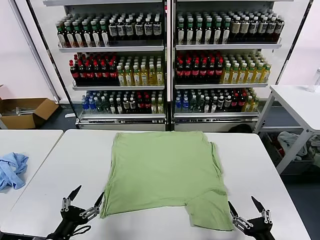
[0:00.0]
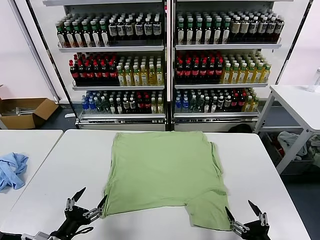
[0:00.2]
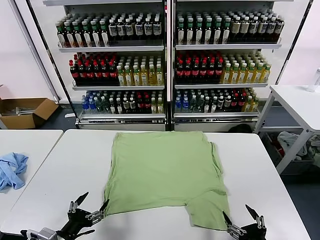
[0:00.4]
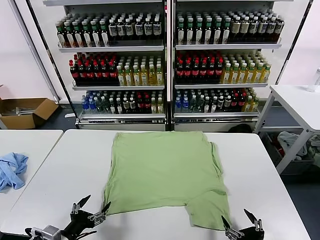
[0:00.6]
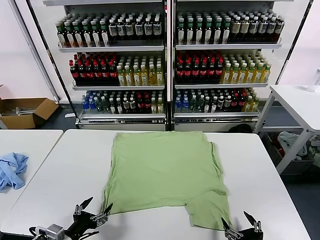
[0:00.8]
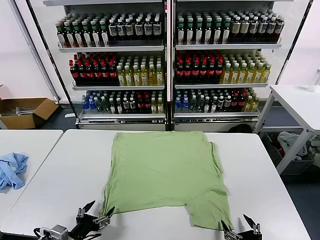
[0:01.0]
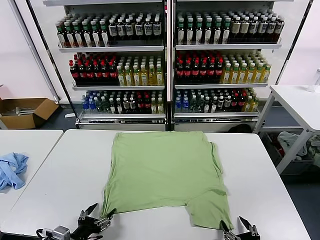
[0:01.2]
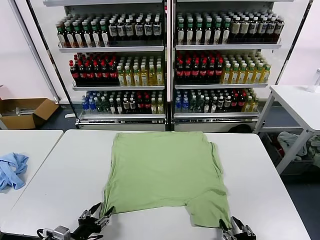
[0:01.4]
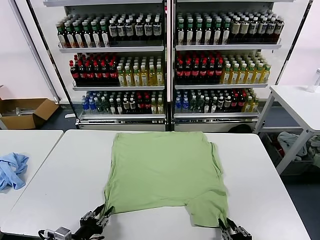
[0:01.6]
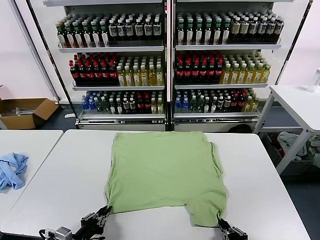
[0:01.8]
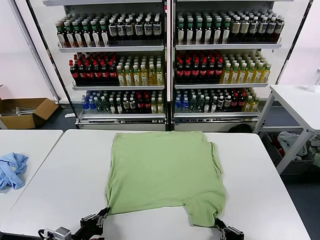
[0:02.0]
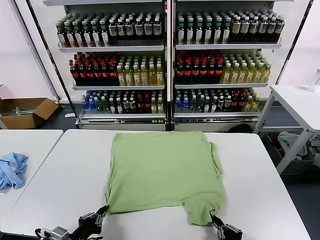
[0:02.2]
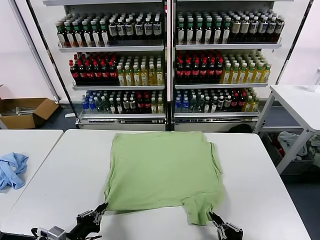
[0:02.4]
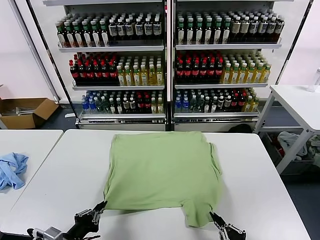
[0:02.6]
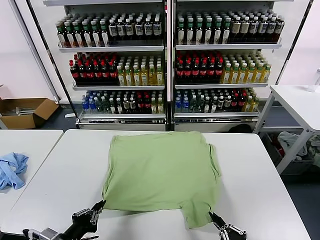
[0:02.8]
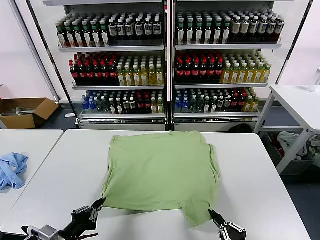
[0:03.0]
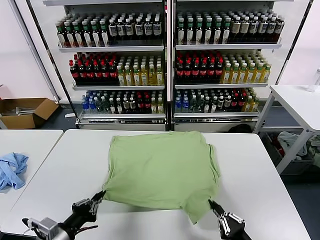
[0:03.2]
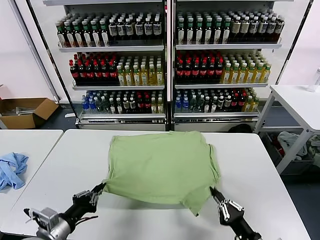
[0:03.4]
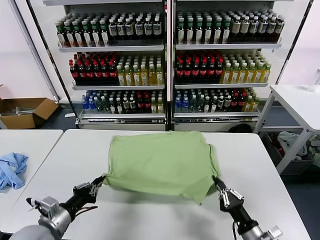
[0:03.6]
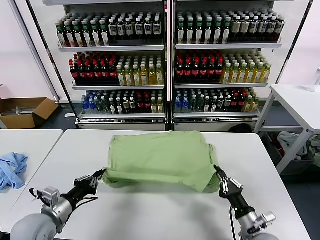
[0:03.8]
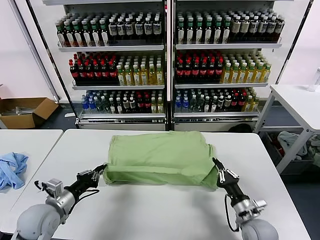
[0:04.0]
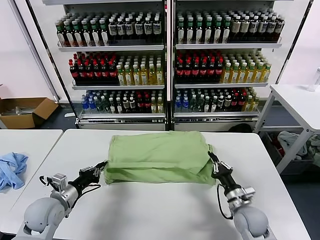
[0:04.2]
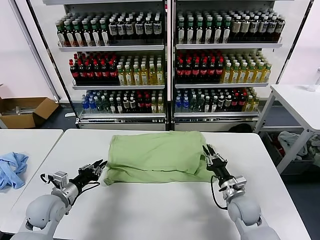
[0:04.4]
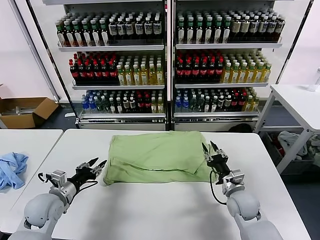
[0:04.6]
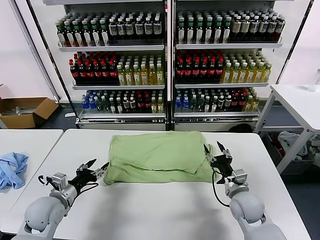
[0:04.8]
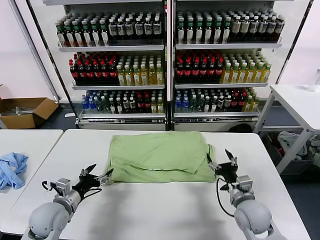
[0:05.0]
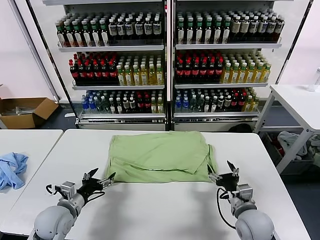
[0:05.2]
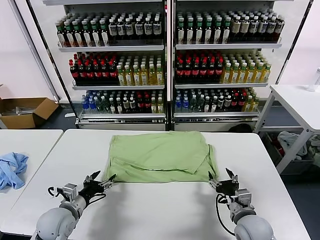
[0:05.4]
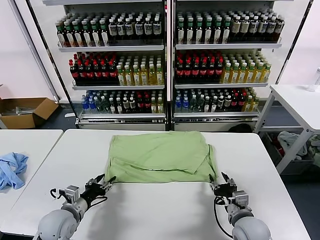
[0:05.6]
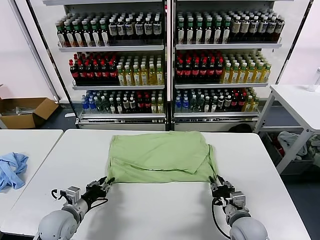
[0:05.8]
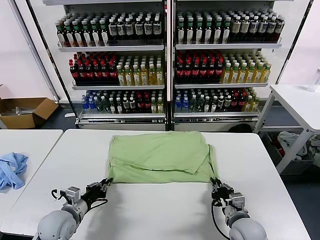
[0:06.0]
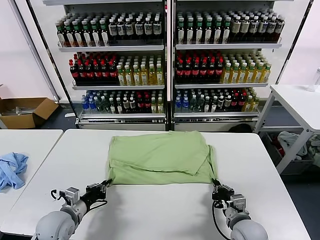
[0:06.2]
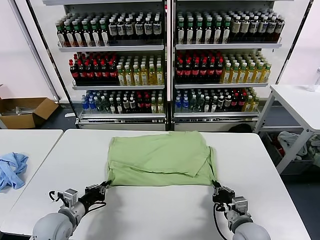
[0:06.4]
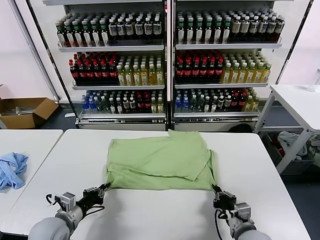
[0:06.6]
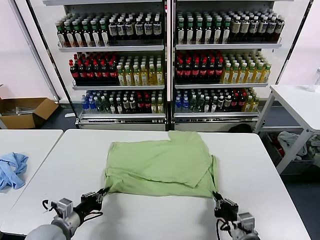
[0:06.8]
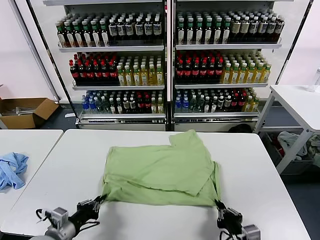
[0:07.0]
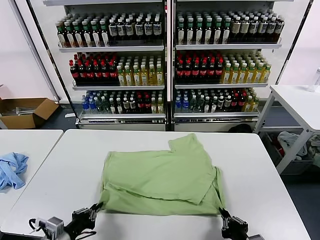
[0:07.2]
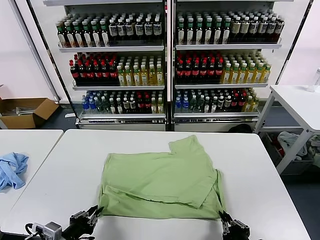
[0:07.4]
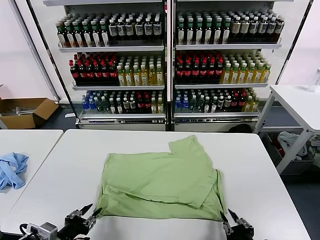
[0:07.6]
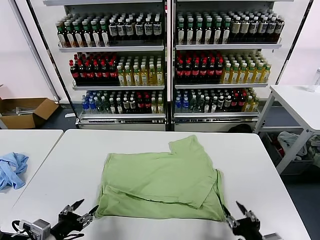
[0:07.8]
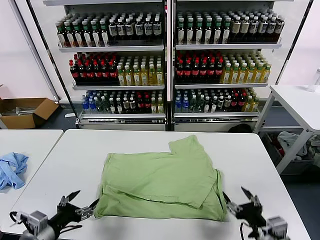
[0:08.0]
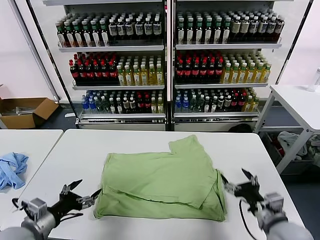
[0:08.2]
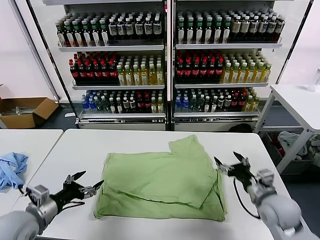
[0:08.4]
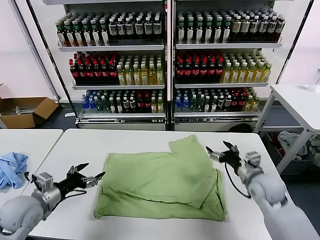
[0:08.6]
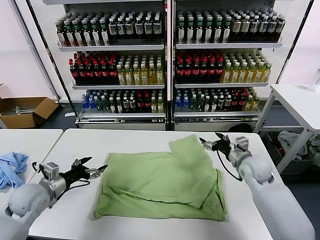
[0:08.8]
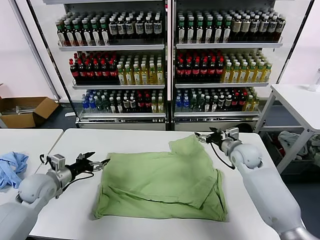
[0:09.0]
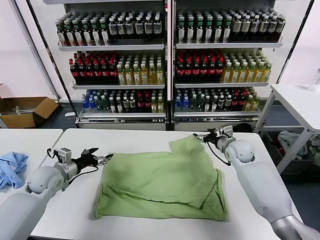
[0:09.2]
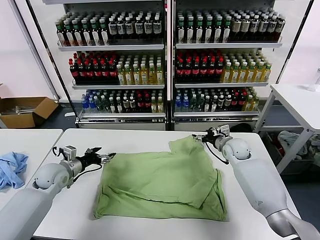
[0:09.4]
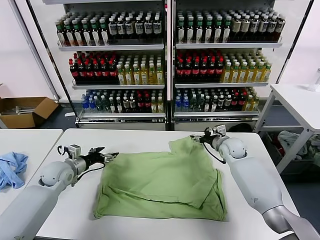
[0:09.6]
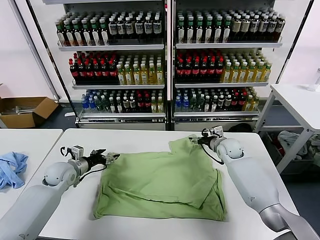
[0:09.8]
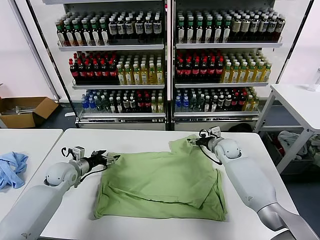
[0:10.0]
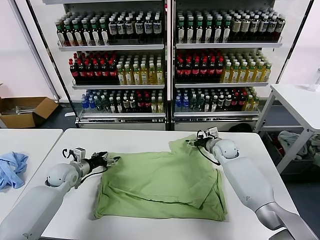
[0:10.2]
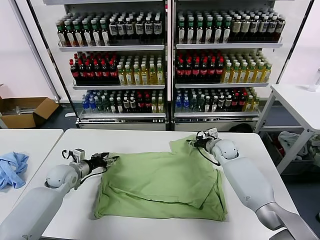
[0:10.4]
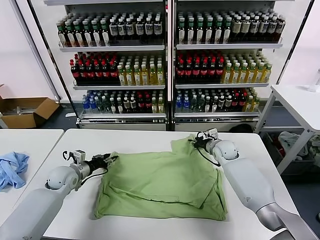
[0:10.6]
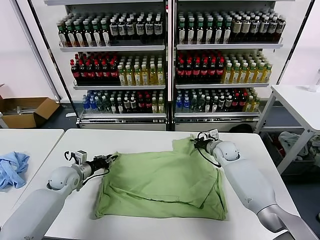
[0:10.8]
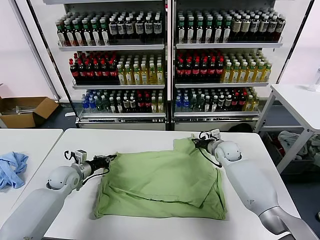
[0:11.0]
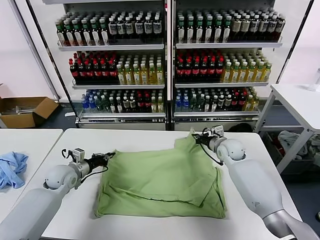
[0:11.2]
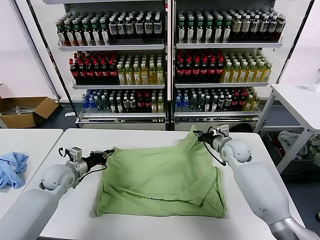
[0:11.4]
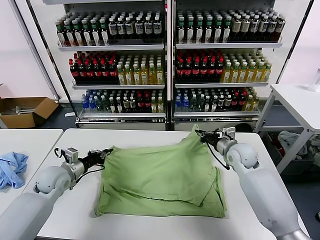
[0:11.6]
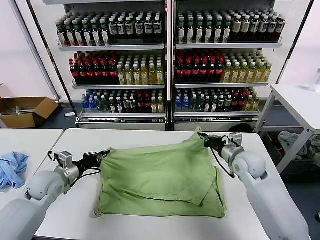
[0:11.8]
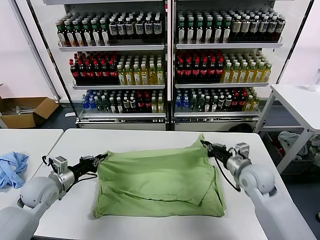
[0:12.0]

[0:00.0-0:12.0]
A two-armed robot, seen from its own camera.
Task of the whole recording: fold and organize the clothes.
Step, 0:00.0 to 0:01.8: use both grippers simultaneously to clamp the lower edge of the clothing fabric.
Step, 0:02.0 to 0:04.2: use both grippers to drag the lower edge of the fabric forward and fold it over the upper edge.
Step, 0:04.6 to 0:07.4: Drag the clothes downward with both gripper.
Step, 0:07.8 to 0:10.8: use both grippers simultaneously to clamp the upper edge of the clothing fabric.
0:01.6 to 0:03.0: The left gripper shifts approximately 5 cm upward.
0:03.0 to 0:04.4: The grippers both shift forward by some 20 cm. The left gripper opens. Meanwhile the right gripper opens up.
0:04.4 to 0:06.0: The right gripper heads backward, covering some 10 cm, and closes, while the left gripper changes place by approximately 5 cm, and closes its fingers.
0:06.0 to 0:07.6: Both grippers move backward and upward, roughly 15 cm. The left gripper opens its fingers; the right gripper opens its fingers.
0:07.6 to 0:09.0: The left gripper goes approximately 25 cm forward, and opens, while the right gripper heads forward, covering some 40 cm, and opens.
0:09.0 to 0:10.4: The right gripper ends up approximately 5 cm from where it was, and closes up. Meanwhile the left gripper heads downward and forward, covering approximately 10 cm, and closes its fingers.
0:10.4 to 0:12.0: The right gripper goes approximately 20 cm backward, and closes its fingers. Meanwhile the left gripper travels backward and upward by some 10 cm, and closes.

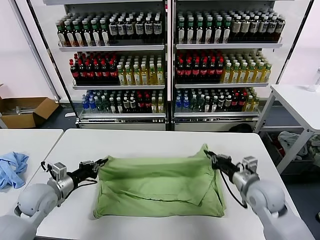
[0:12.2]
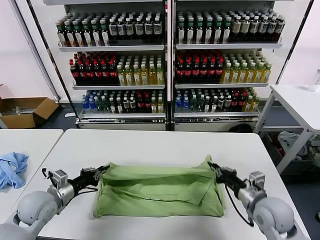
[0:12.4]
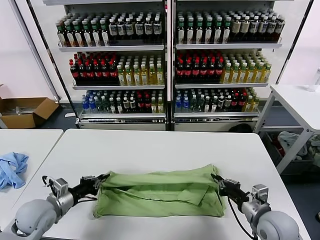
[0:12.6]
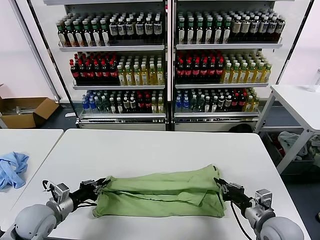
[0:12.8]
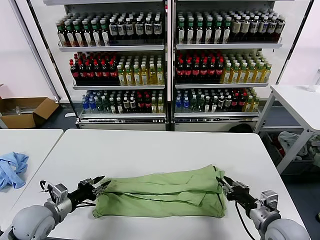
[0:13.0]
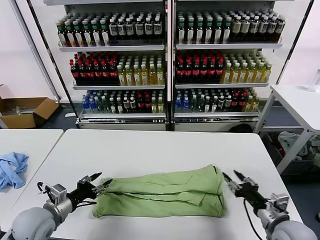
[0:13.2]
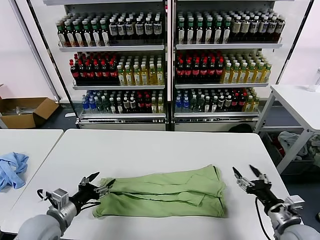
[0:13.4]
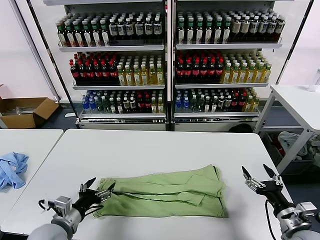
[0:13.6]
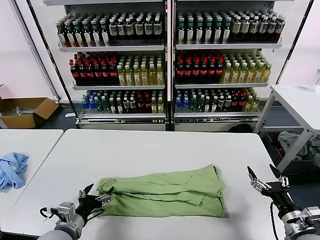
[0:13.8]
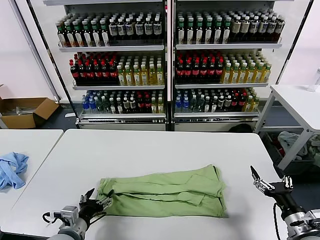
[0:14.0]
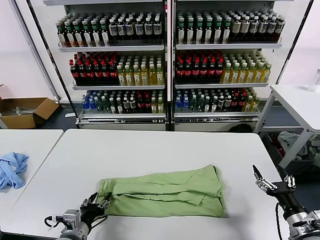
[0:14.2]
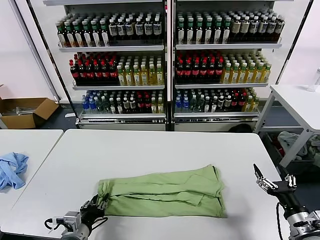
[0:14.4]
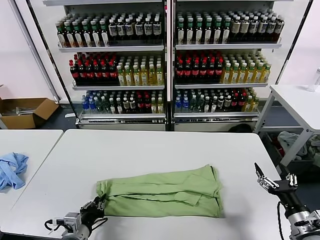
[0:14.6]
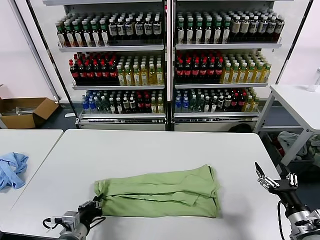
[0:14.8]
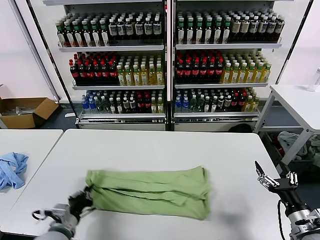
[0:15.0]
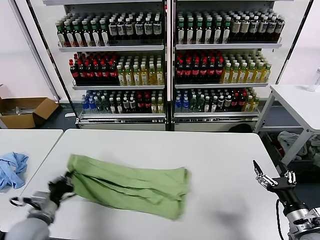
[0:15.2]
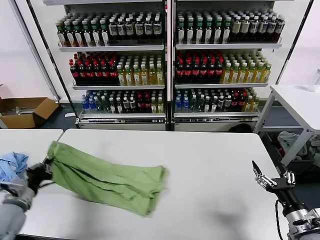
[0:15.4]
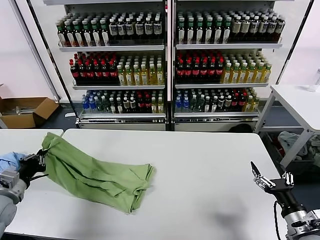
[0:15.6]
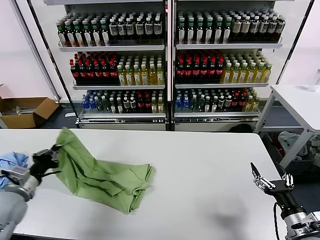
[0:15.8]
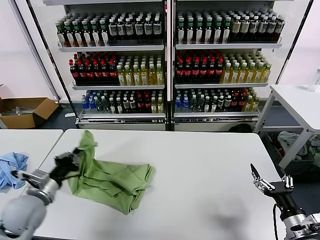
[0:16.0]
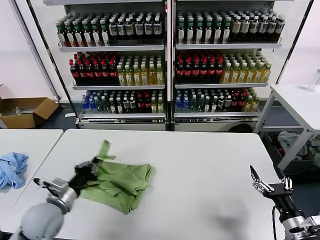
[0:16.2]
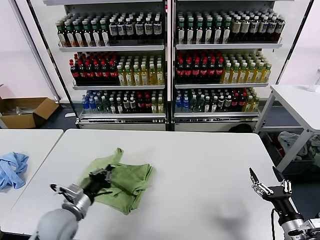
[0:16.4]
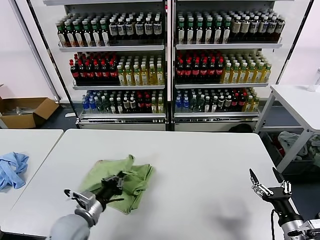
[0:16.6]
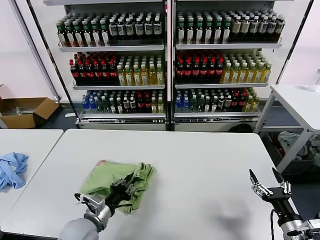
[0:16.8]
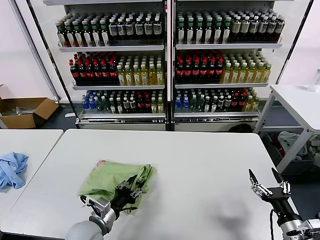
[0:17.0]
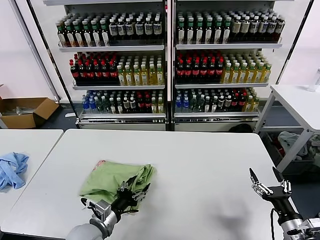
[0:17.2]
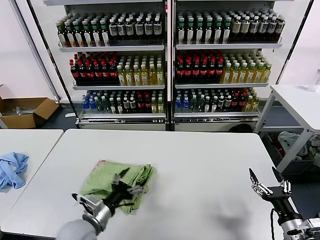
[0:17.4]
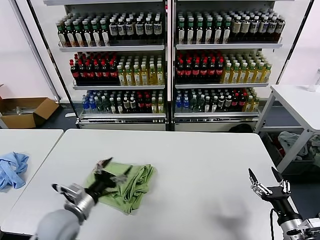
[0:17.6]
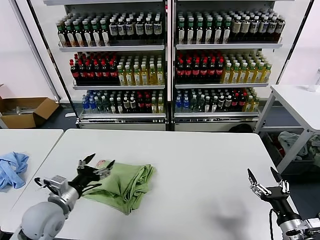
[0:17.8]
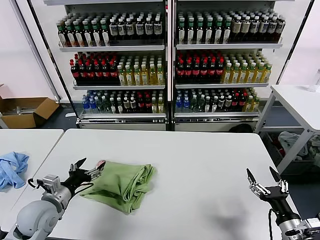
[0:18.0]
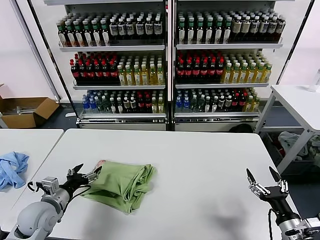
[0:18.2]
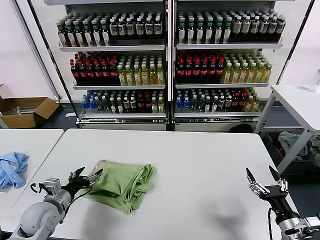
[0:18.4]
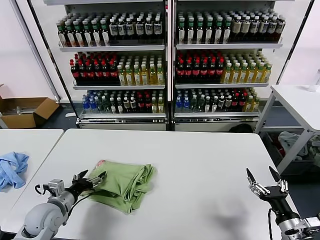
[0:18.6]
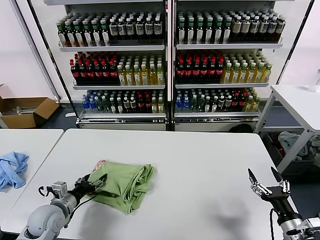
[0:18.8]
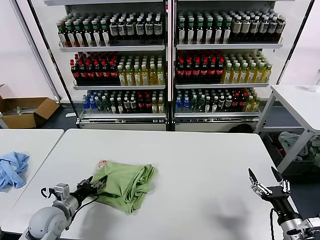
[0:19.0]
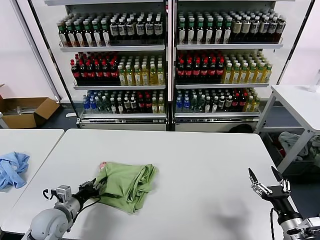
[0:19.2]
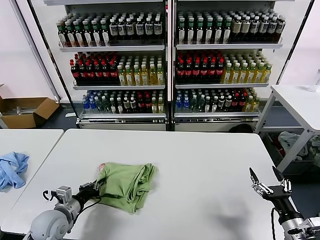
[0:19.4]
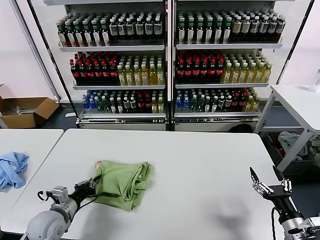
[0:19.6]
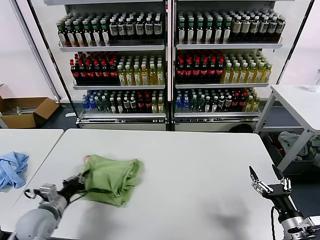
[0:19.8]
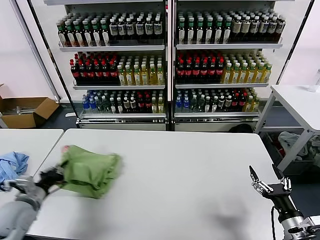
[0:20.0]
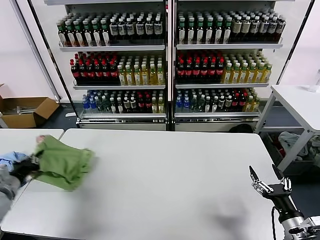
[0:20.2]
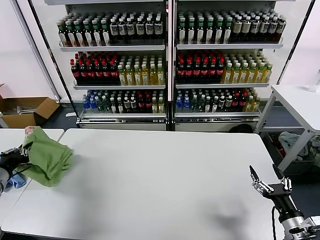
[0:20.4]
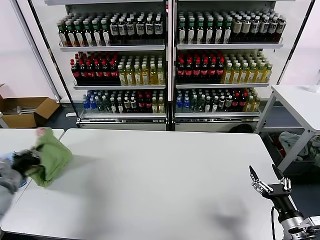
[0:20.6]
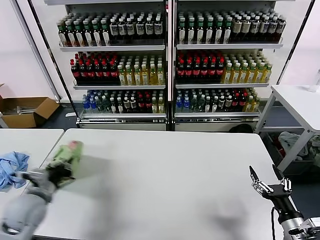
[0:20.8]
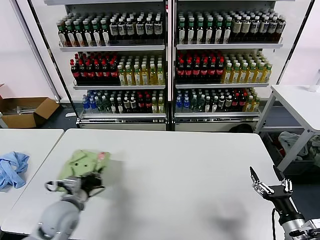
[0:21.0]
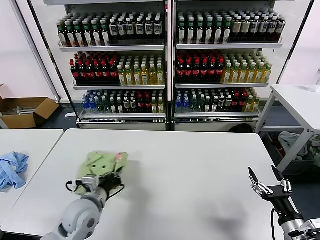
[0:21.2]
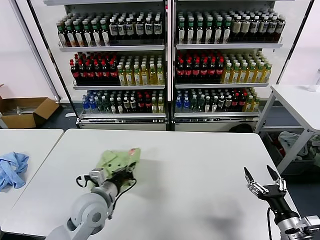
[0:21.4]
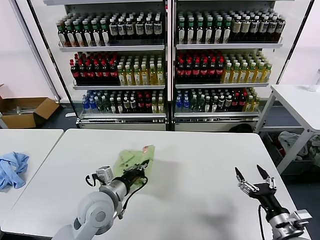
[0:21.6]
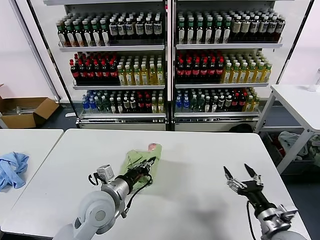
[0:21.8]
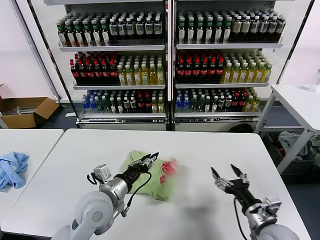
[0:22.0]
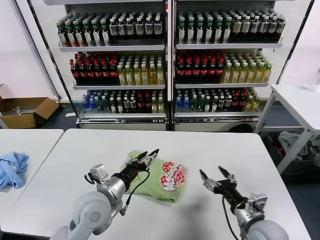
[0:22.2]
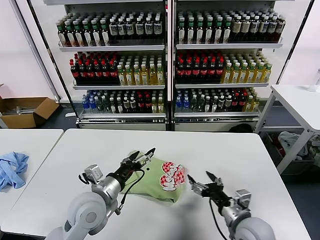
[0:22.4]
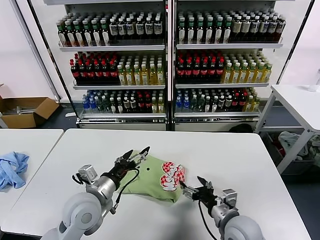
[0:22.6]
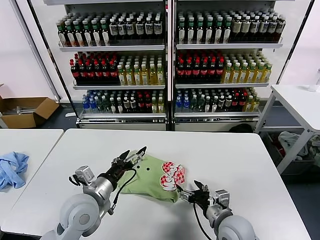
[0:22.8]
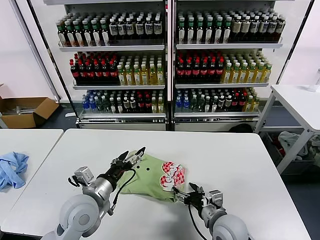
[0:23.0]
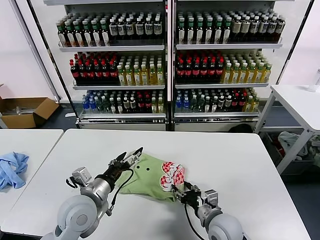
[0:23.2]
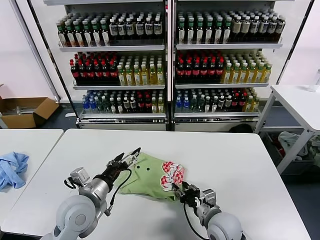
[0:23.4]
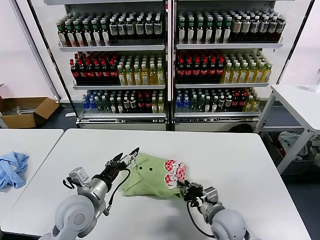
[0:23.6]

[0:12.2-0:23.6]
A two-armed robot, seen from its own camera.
Task of the whole recording: fold and organize the clothes.
Step, 0:13.0 to 0:14.6: use the left gripper to clamp the left edge of the fabric.
Step, 0:14.8 to 0:16.8: use the left gripper to drag the left edge of the fabric to the left and folds it over the right edge.
Step, 0:17.2 to 0:22.0: Flip the folded clothes over with left gripper.
0:12.2 to 0:13.6: The grippers both shift backward and to the right by roughly 15 cm. The left gripper opens its fingers, while the right gripper opens its fingers.
0:13.6 to 0:15.0: The left gripper closes up.
0:15.0 to 0:16.4: The left gripper travels to the left and back again, roughly 15 cm each way.
0:16.4 to 0:17.8: The left gripper moves about 5 cm, and opens.
0:17.8 to 0:19.4: The left gripper is displaced downward by some 5 cm, and closes up.
0:19.4 to 0:20.8: The left gripper travels upward by approximately 10 cm, and moves about 15 cm to the left and comes back.
0:20.8 to 0:22.2: The right gripper moves to the left and forward, about 10 cm, while the left gripper goes approximately 20 cm to the right, and opens.
0:22.2 to 0:23.6: The right gripper goes about 10 cm to the left, downward and forward, and closes up.
